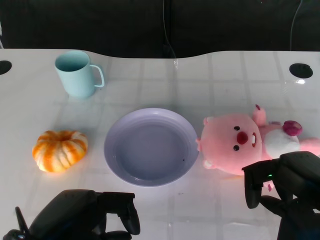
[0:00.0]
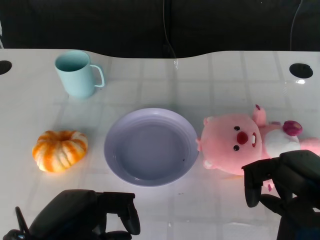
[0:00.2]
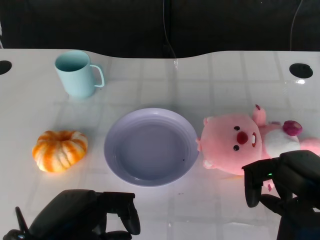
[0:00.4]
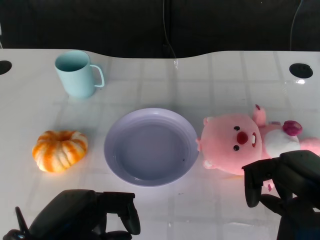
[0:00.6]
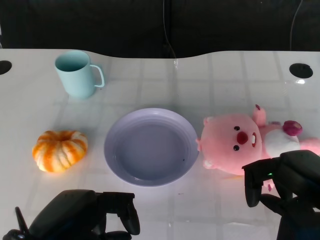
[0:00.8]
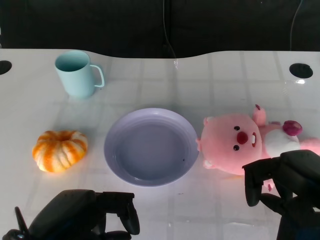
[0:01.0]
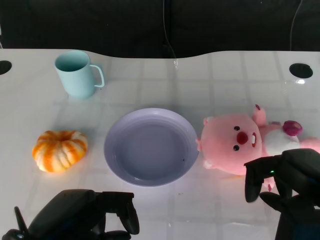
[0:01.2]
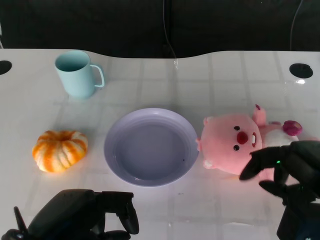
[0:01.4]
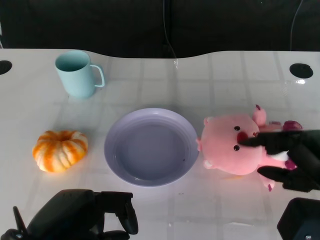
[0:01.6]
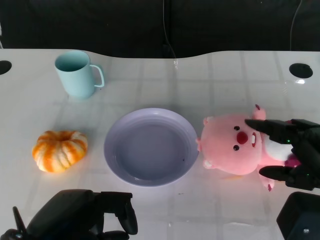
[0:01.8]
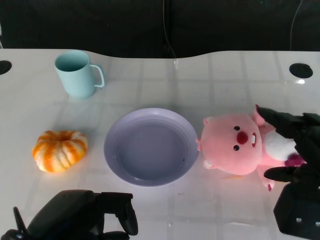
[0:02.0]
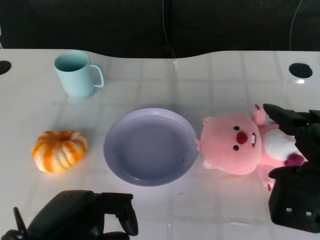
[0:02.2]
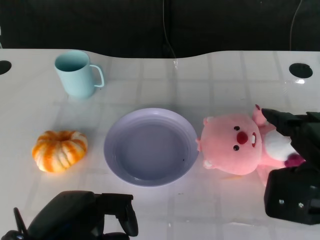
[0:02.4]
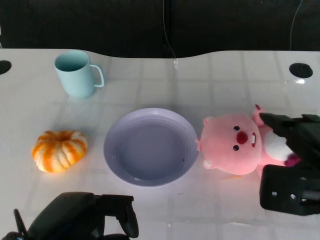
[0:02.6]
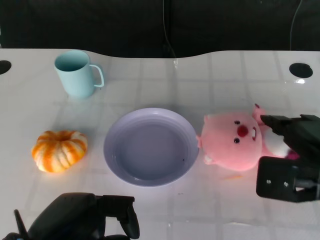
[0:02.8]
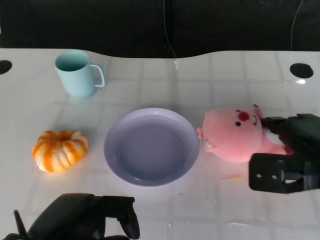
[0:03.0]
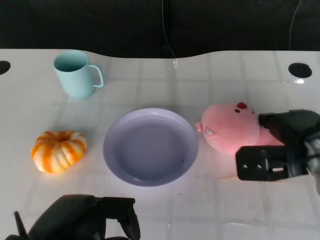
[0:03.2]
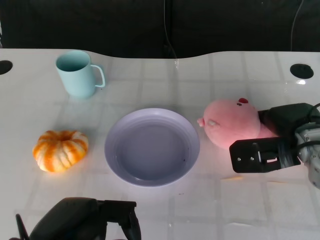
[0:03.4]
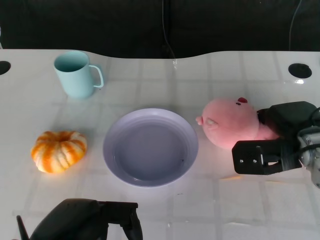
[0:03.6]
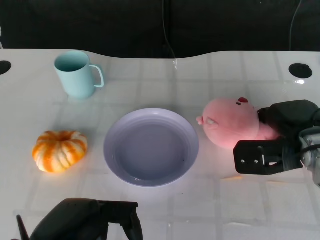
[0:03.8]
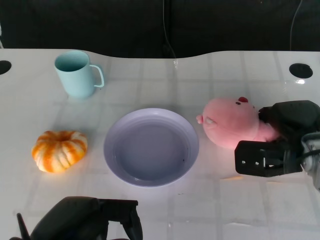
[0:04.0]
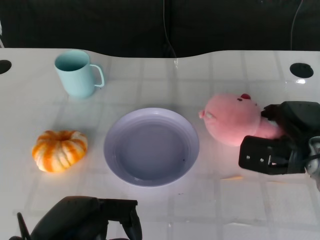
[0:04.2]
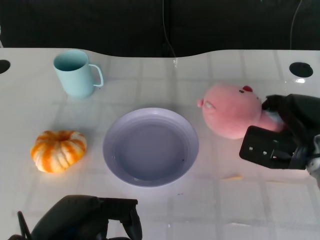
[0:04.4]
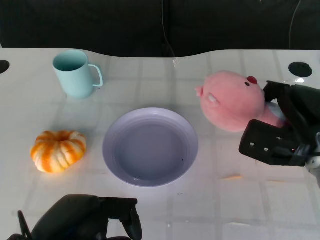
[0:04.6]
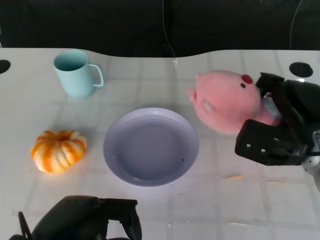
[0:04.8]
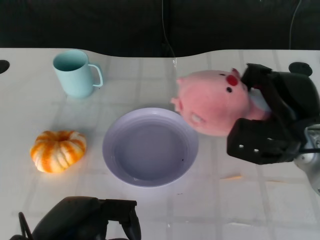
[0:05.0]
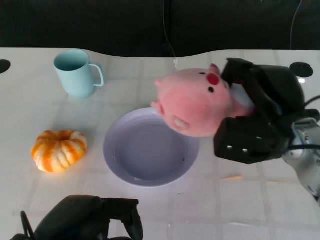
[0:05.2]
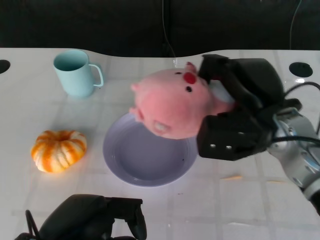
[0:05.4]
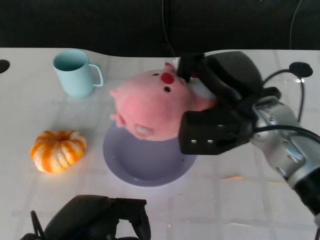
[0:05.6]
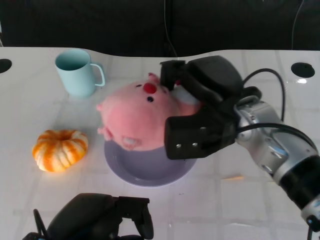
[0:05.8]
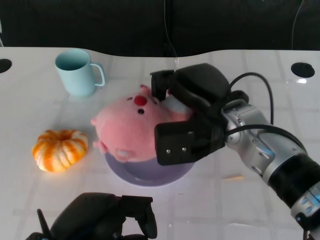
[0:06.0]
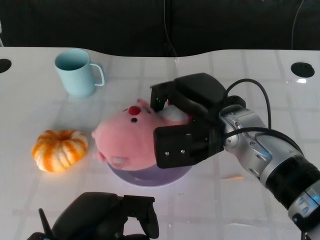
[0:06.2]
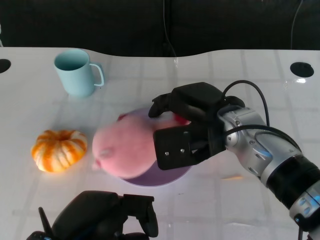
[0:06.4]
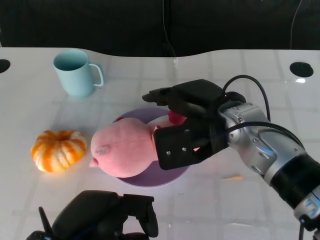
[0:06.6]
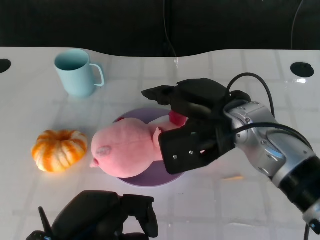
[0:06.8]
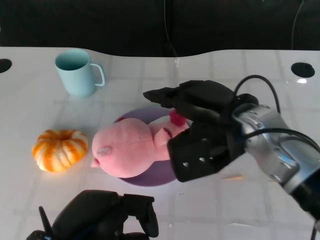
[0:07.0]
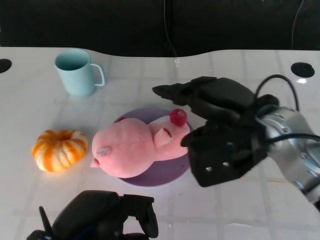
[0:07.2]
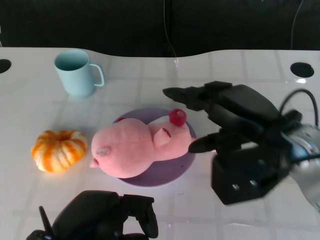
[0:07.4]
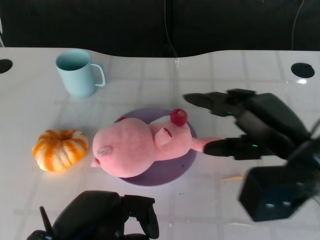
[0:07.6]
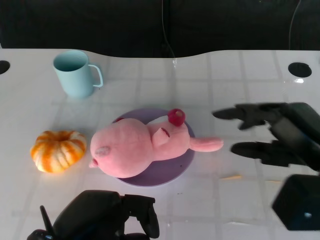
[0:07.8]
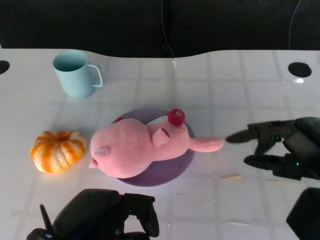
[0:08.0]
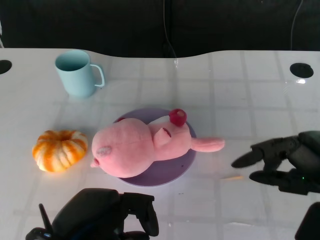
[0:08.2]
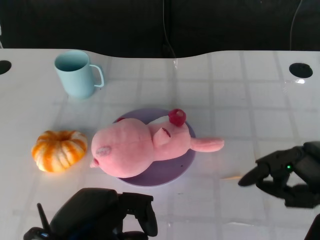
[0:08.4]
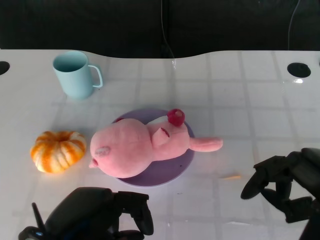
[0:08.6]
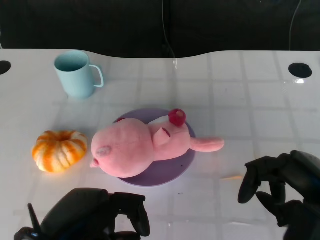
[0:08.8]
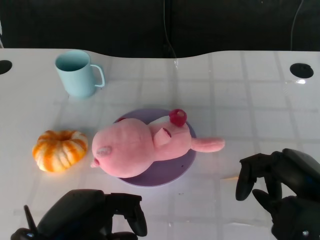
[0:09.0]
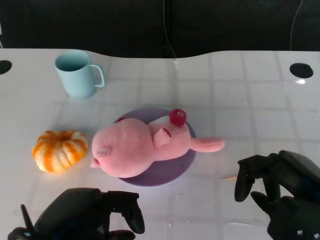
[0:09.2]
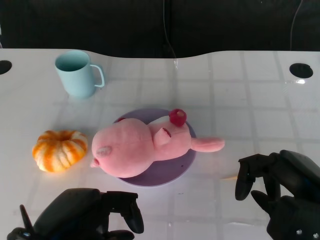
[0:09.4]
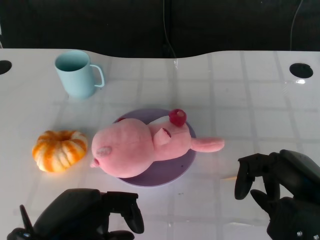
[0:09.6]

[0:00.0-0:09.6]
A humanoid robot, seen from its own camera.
Task of the whole recording: Pick up the doll on the other side of the plate and place it into the plate.
Step, 0:01.2 to 0:04.6: Grasp the pink doll with the right gripper.
Step, 0:05.0 to 0:06.8: Place the pink doll into the plate with the right gripper.
0:01.6 to 0:03.2: The right hand moves forward, about 10 cm.
0:04.8 to 0:06.4: The right hand travels to the left by about 10 cm.
0:06.4 to 0:08.0: The right hand is displaced to the right and backward by some 20 cm.
0:08.0 to 0:09.6: The hands stay close to where they were, moving slightly.

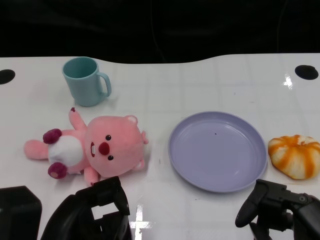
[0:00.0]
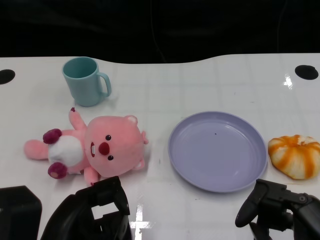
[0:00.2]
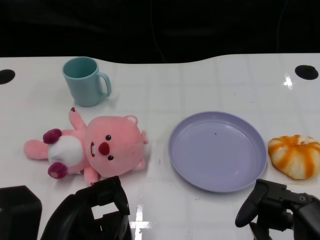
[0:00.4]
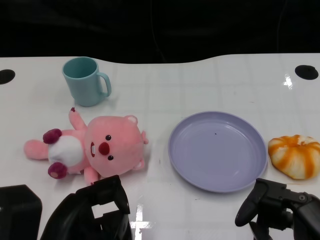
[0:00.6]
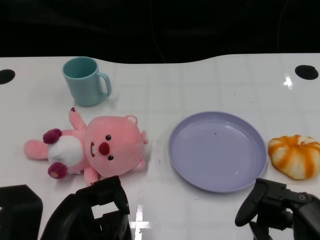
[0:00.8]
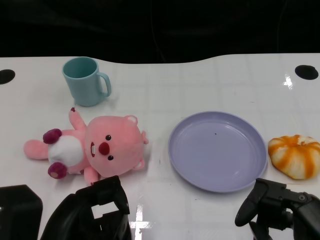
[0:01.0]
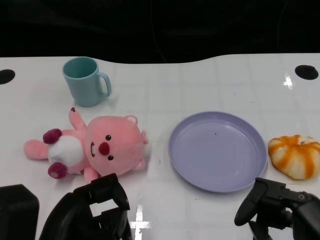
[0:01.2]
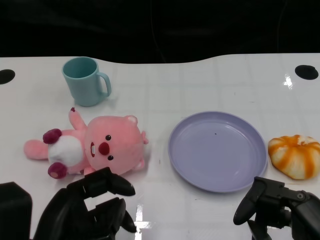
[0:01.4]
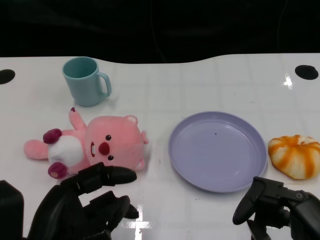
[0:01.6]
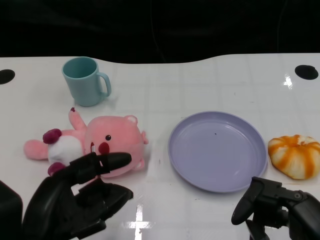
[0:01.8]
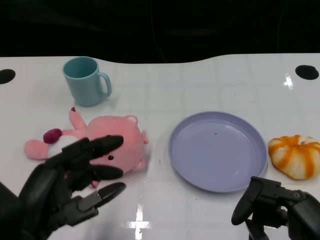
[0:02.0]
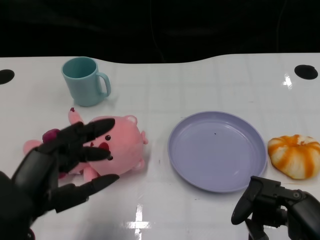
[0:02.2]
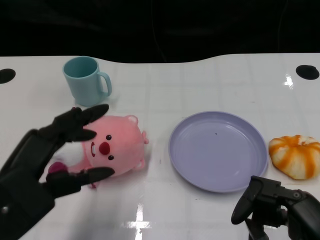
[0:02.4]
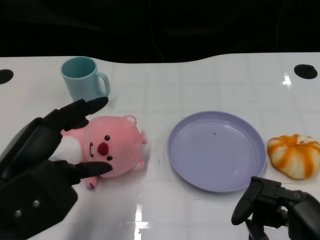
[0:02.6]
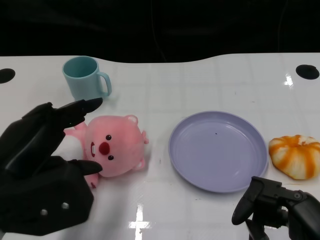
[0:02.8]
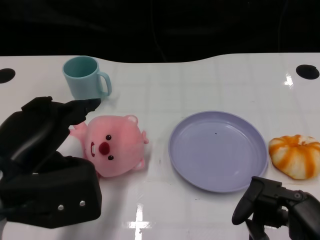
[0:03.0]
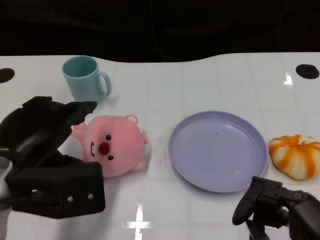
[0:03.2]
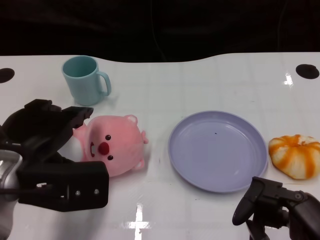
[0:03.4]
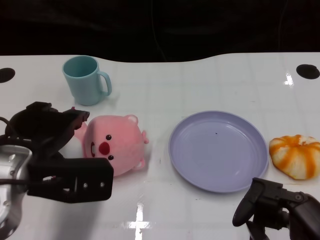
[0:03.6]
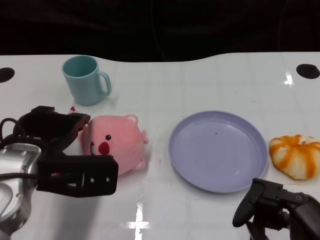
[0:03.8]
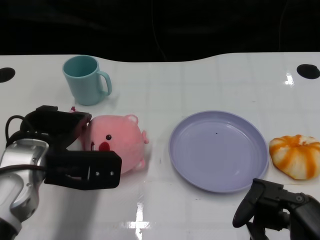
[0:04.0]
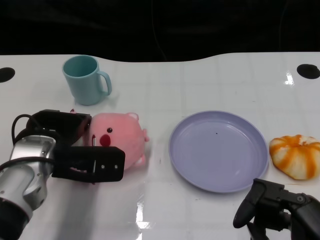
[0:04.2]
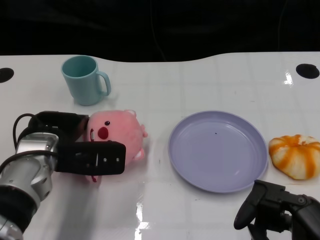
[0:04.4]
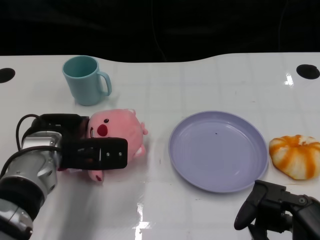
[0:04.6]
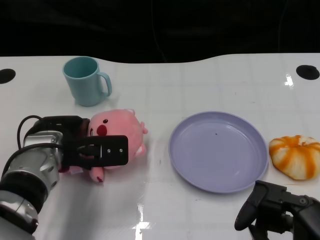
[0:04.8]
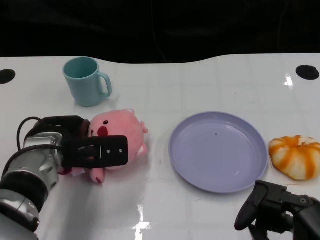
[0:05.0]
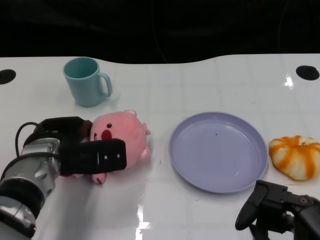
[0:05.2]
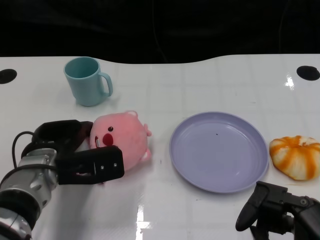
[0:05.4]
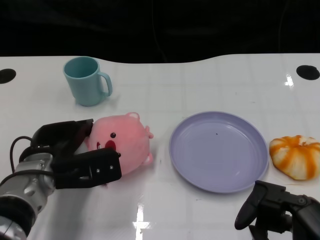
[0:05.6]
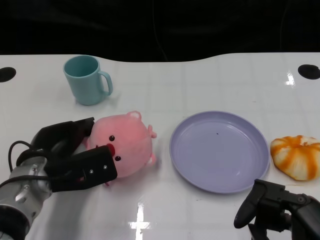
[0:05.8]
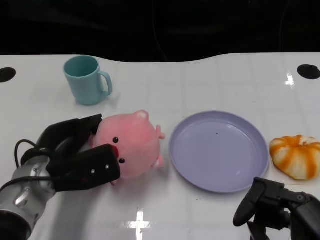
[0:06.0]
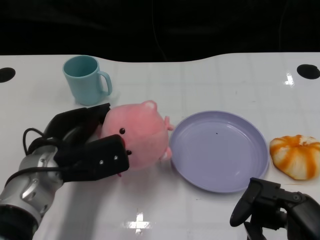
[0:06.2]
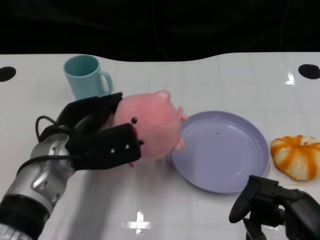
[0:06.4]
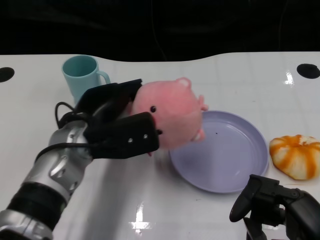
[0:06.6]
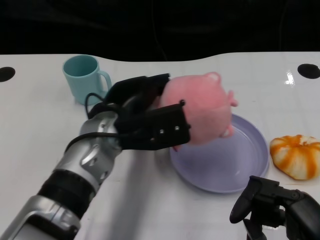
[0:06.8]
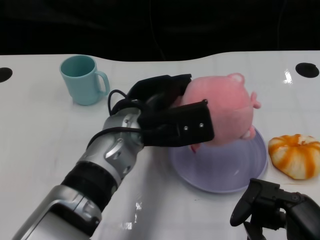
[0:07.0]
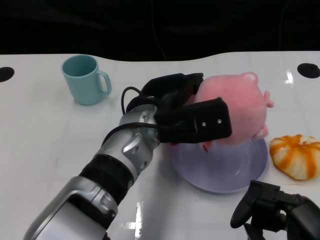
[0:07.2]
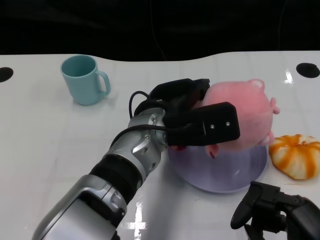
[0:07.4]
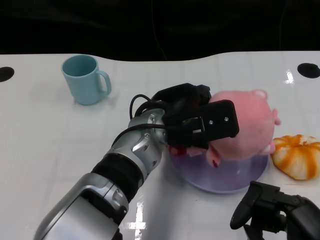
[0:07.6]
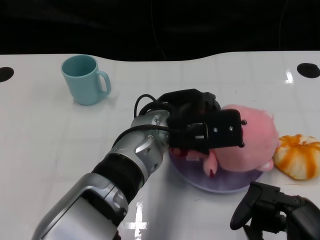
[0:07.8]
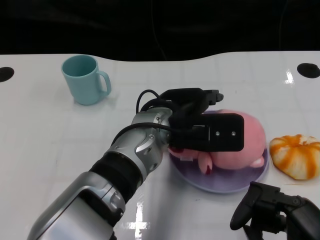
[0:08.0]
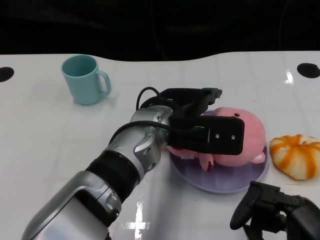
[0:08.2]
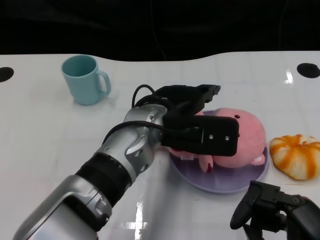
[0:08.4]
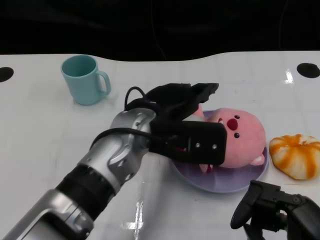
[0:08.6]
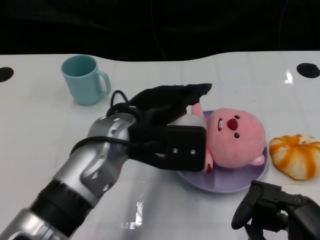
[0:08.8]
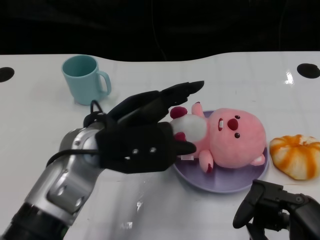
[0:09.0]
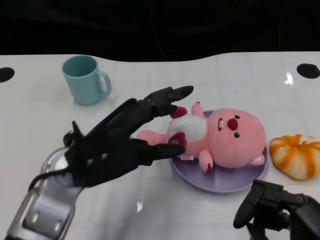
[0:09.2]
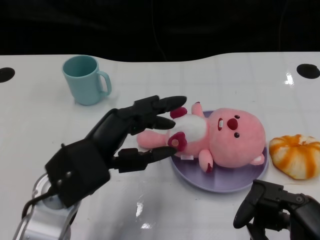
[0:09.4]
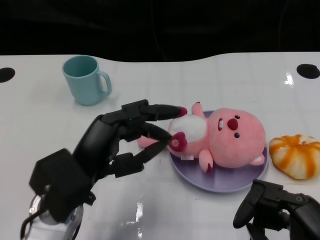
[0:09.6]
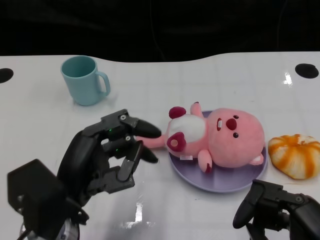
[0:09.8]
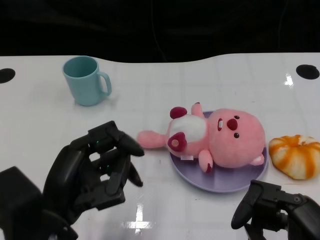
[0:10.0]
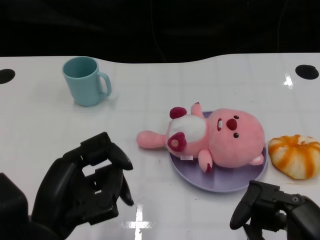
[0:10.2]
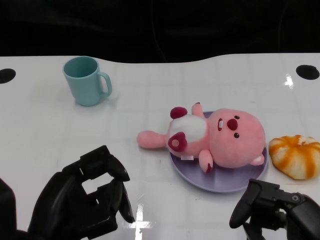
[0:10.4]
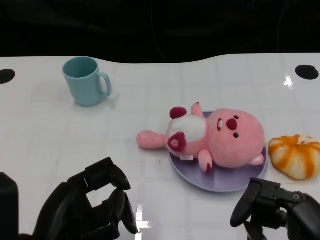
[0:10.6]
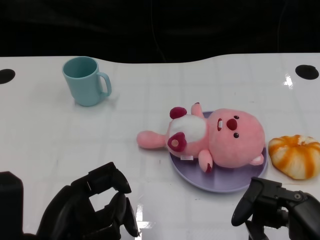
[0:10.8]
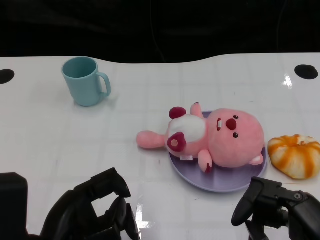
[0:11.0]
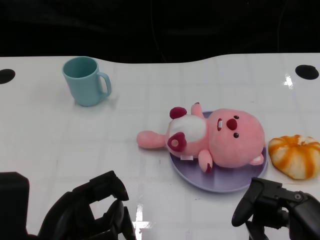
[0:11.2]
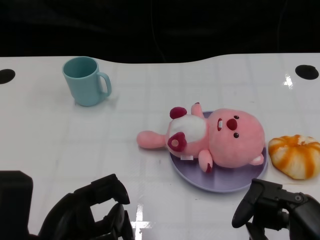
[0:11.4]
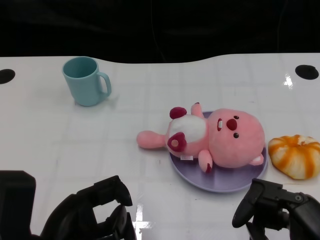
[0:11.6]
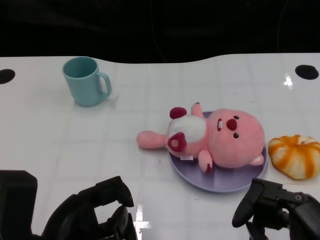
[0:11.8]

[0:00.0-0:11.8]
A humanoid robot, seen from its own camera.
Task of the whole recording: Pick up the doll on one side of the plate and place it into the plate.
Step, 0:01.2 to 0:05.8: Grasp the pink doll with the left gripper.
Step, 0:06.0 to 0:08.4: Place the pink doll into the plate with the left gripper.
0:01.4 to 0:03.0: The left hand goes approximately 10 cm upward and forward.
0:03.0 to 0:04.4: The left hand shifts about 15 cm forward and downward.
0:06.0 to 0:07.4: The left hand goes roughly 15 cm to the right.
0:07.4 to 0:08.8: The left hand shifts about 5 cm to the left.
0:08.8 to 0:10.4: The left hand is displaced backward and to the left by approximately 20 cm.

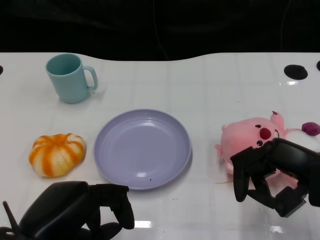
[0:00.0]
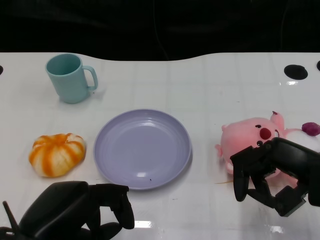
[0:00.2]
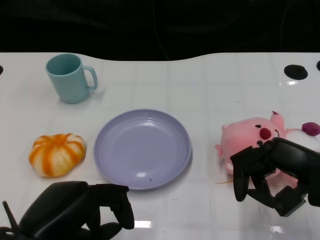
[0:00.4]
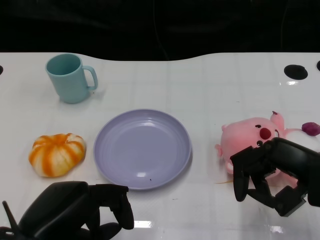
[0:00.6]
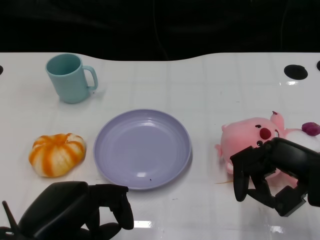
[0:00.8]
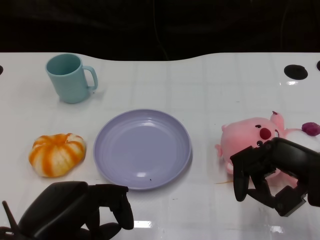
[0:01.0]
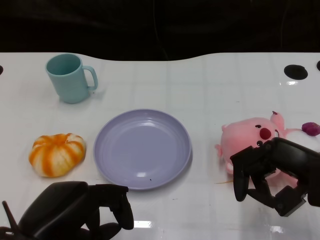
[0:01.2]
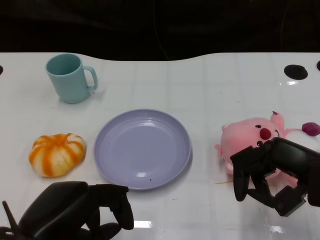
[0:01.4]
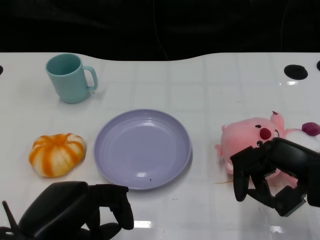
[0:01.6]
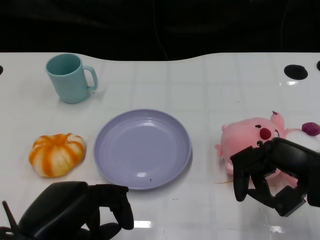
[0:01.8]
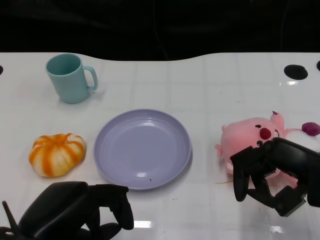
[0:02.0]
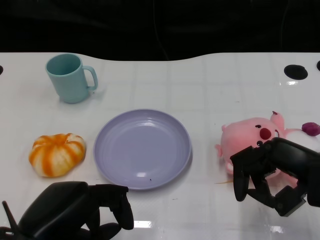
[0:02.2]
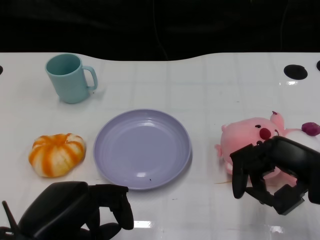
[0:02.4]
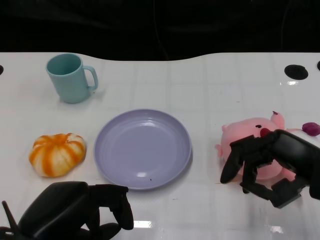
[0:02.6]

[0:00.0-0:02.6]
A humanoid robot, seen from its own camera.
Task of the whole recording: Pick up the doll on the other side of the plate and place it into the plate.
0:01.2 to 0:02.6: The hands make only small movements.
